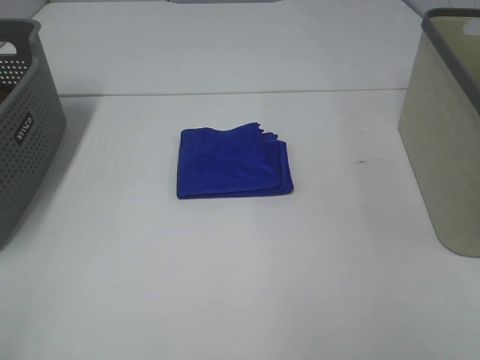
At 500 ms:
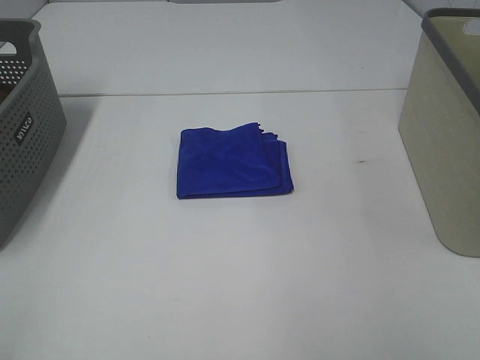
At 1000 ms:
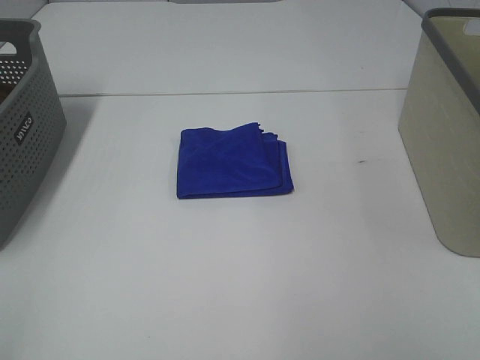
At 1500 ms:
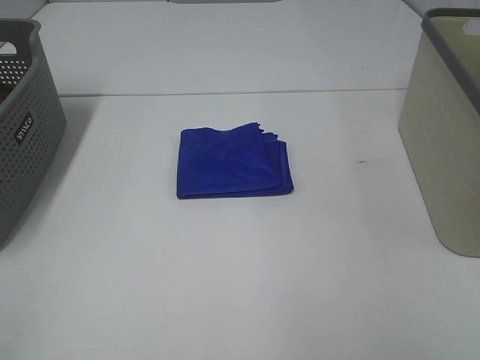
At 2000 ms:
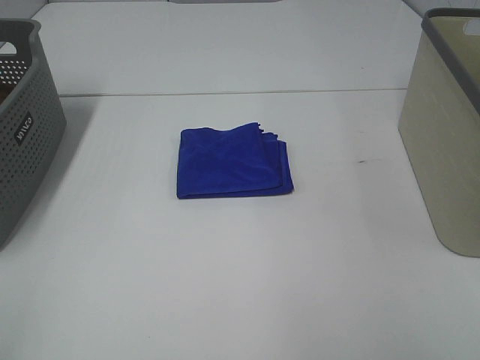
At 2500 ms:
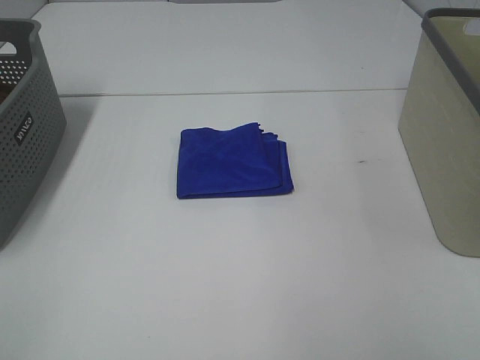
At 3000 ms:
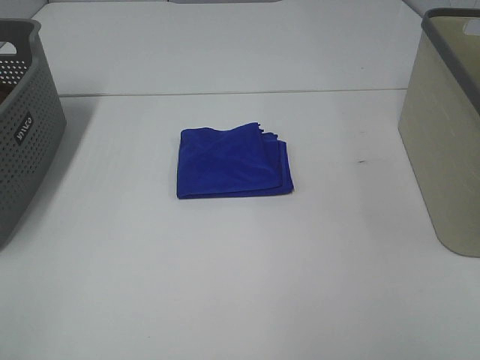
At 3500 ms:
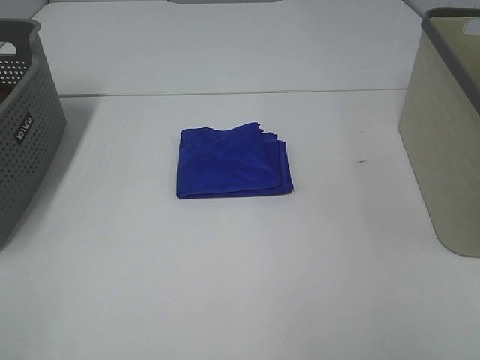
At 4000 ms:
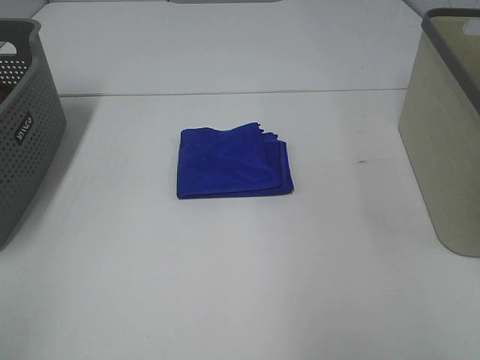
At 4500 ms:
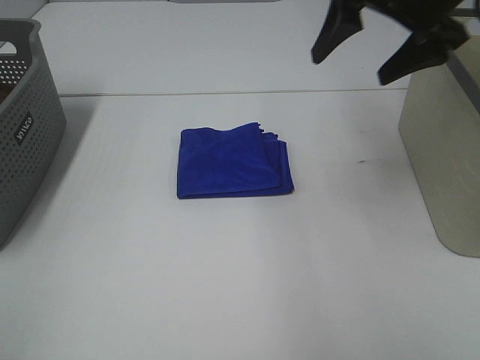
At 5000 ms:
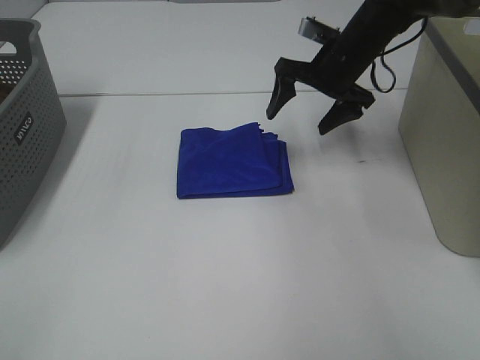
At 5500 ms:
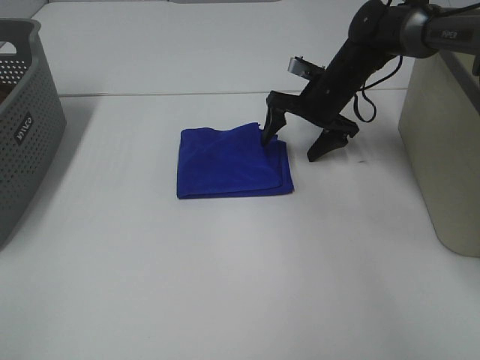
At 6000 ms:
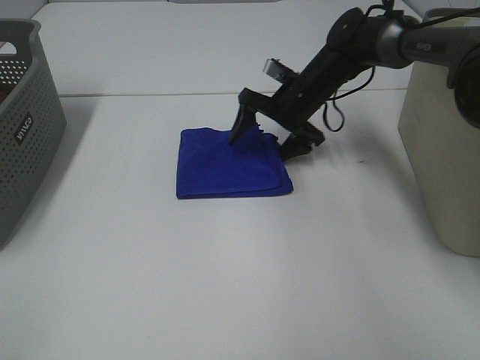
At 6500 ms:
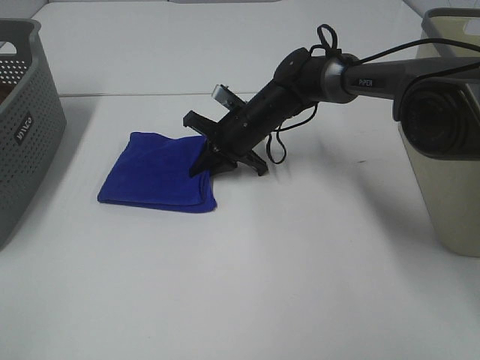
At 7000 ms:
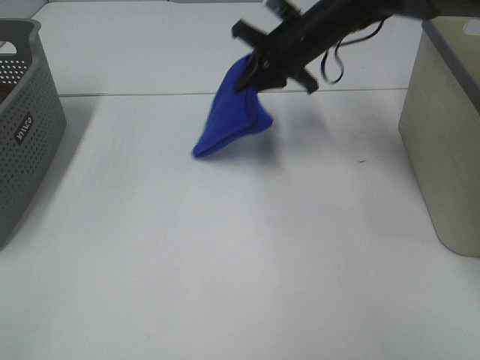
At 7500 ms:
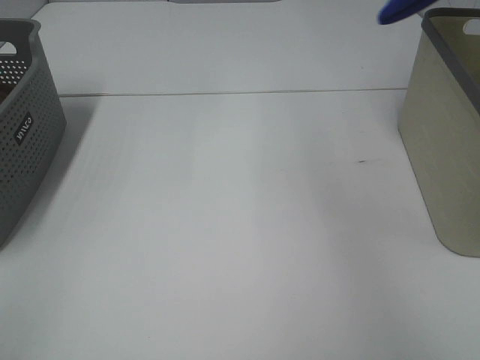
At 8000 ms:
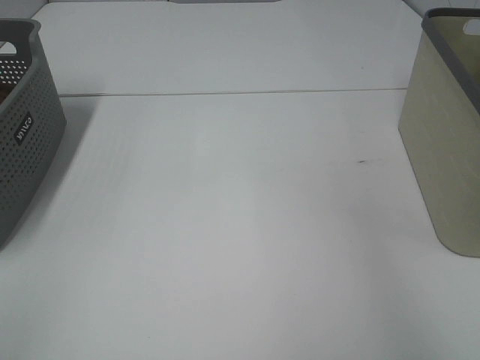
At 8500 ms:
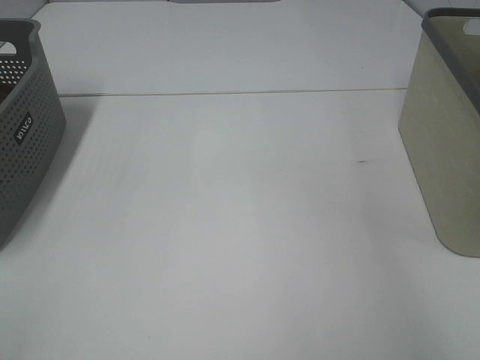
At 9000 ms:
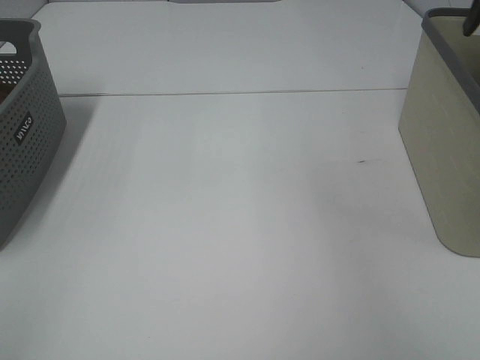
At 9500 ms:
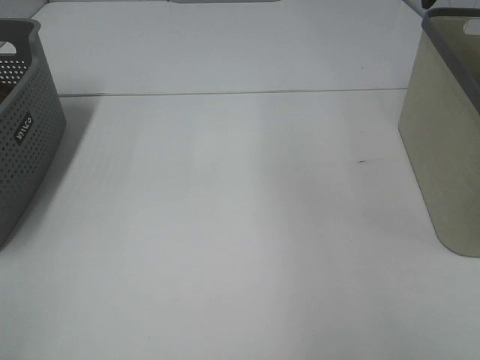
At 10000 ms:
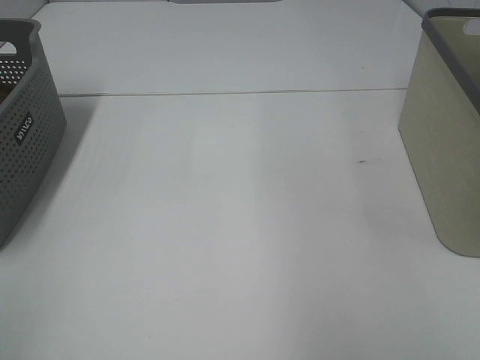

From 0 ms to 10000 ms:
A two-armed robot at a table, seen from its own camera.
Step, from 0 ms to 6500 ms: Right hand: grab the folded blue towel.
Step, from 7000 ms to 8500 ms: Right hand: place the blue towel in right basket.
From 0 ms to 2000 ms: Neither gripper changes place.
From 4000 ms to 6000 ms: The right gripper goes some 50 cm forward, downward and to the left.
From 6000 ms to 8000 ms: The right gripper heads upward and to the right, covering approximately 40 cm, and closes.

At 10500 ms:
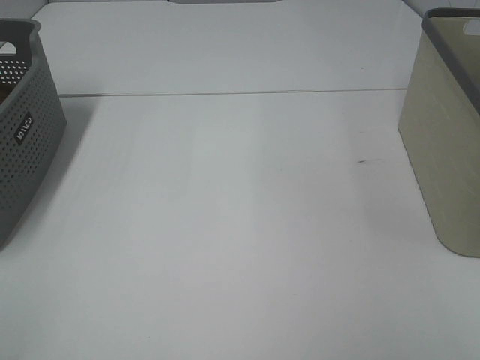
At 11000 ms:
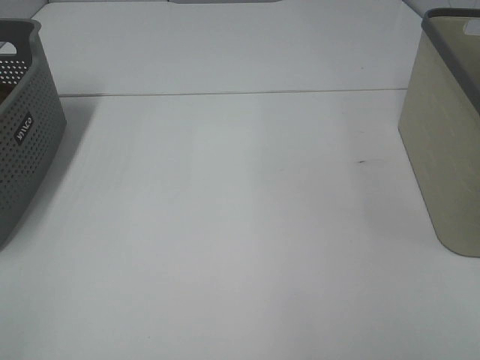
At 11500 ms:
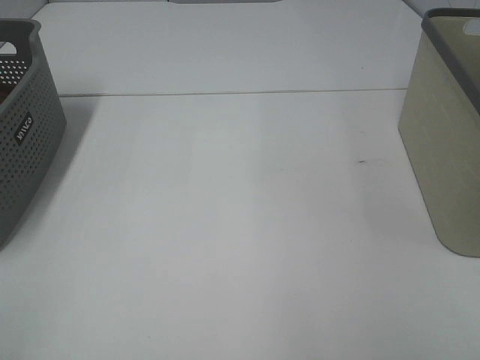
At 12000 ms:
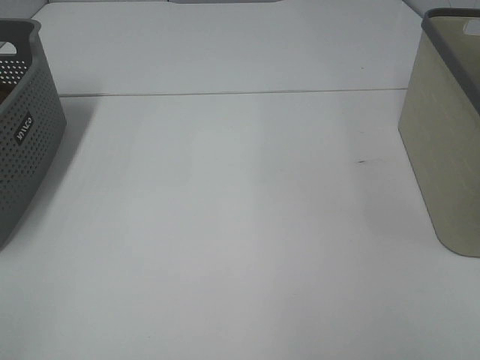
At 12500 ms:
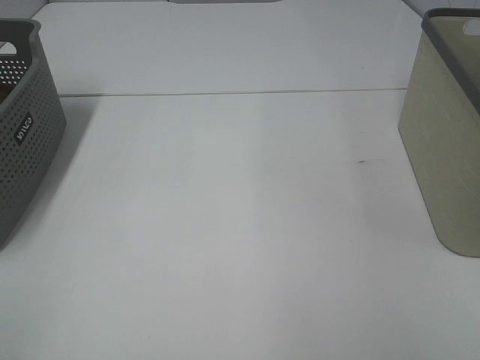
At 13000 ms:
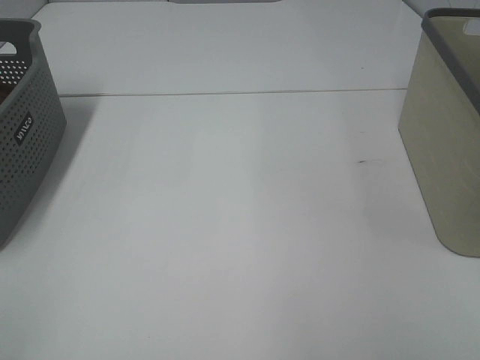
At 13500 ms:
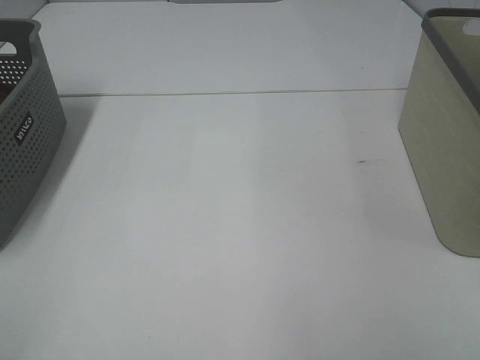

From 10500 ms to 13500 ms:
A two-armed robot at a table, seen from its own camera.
From 12000 ms to 13500 ms: The two grippers keep their place.

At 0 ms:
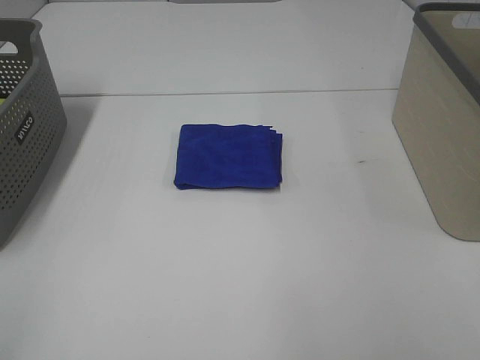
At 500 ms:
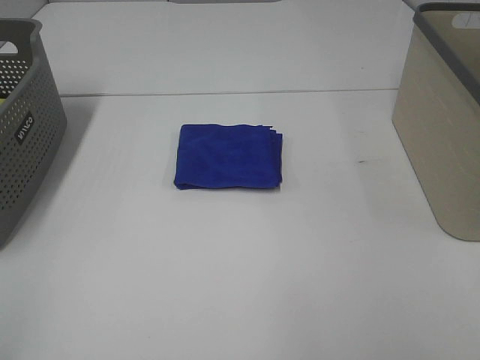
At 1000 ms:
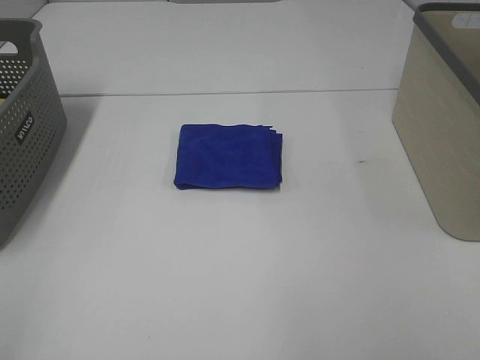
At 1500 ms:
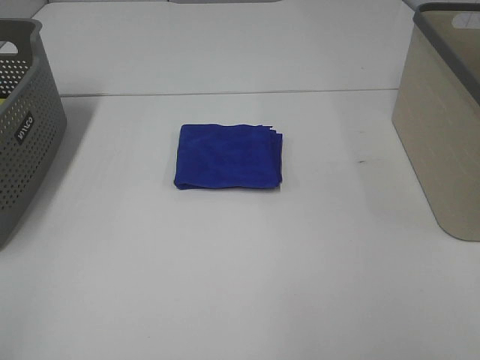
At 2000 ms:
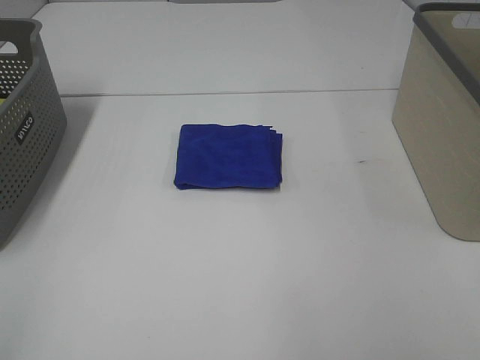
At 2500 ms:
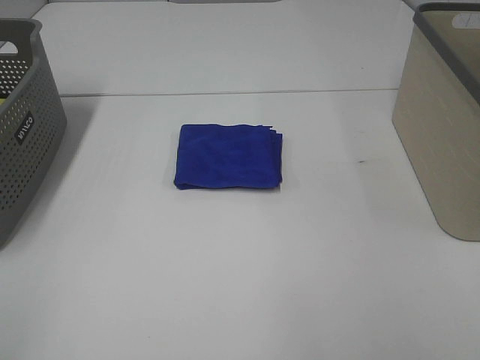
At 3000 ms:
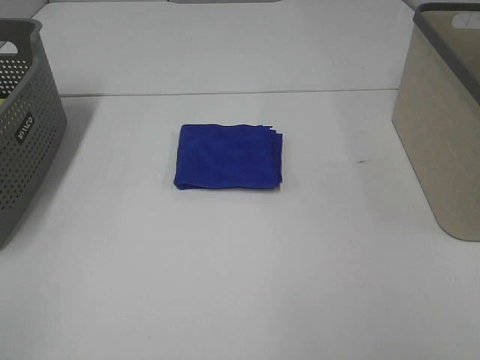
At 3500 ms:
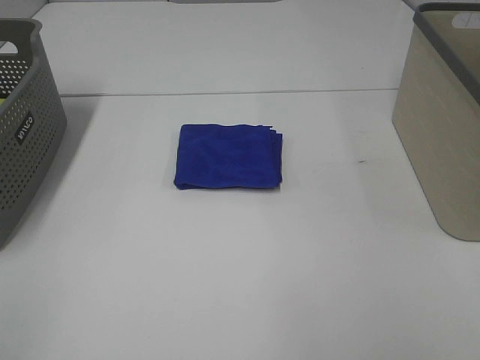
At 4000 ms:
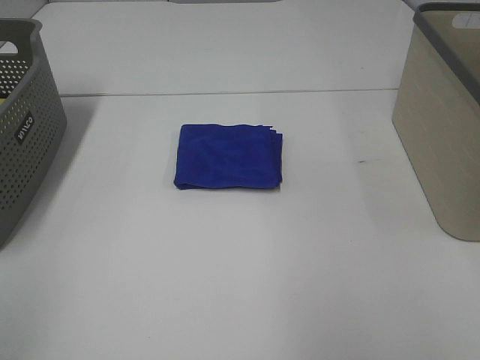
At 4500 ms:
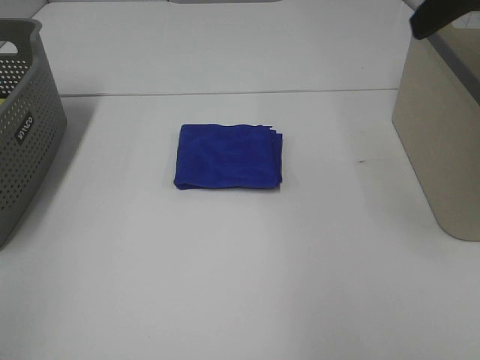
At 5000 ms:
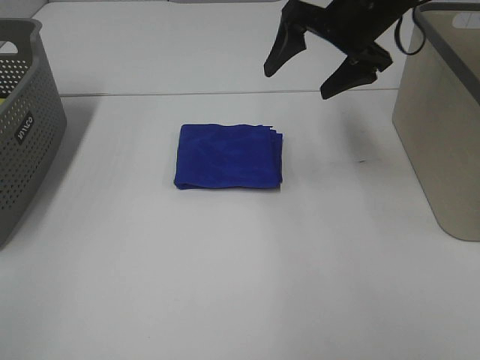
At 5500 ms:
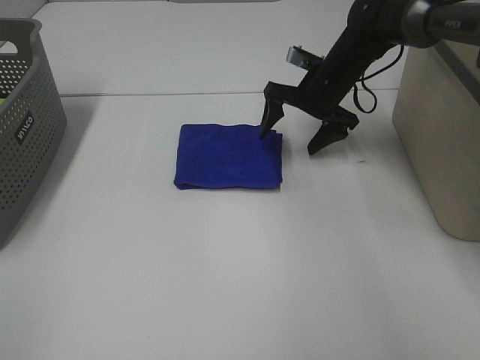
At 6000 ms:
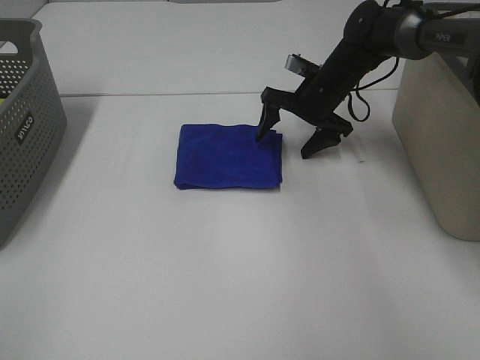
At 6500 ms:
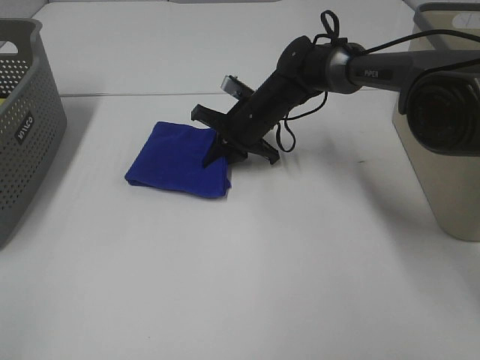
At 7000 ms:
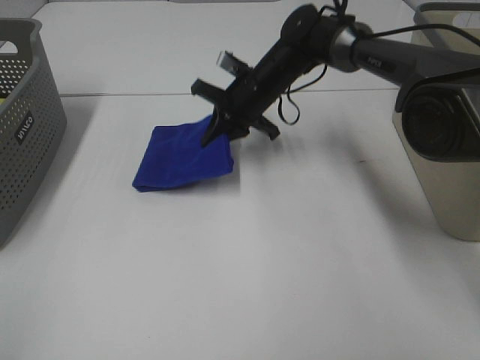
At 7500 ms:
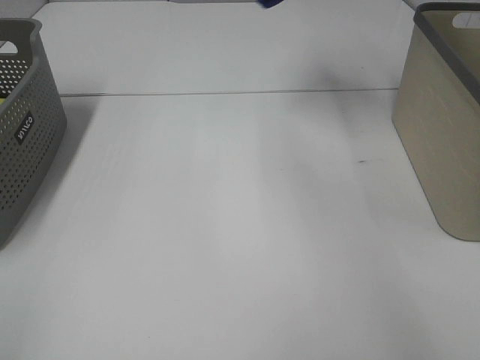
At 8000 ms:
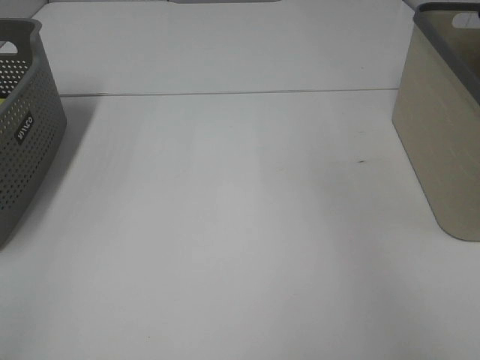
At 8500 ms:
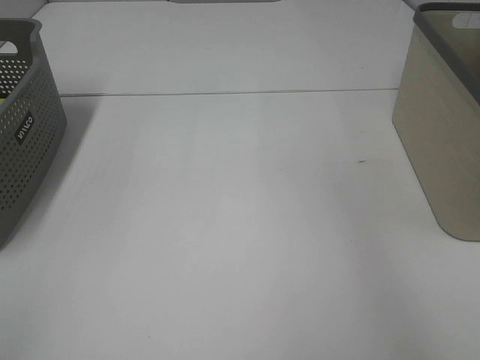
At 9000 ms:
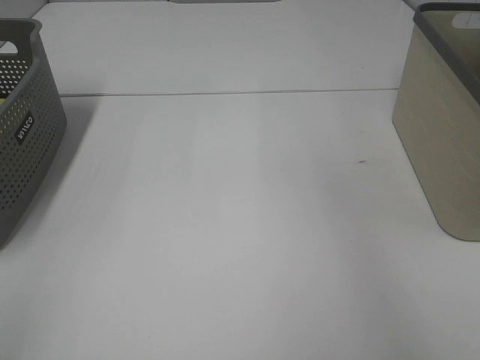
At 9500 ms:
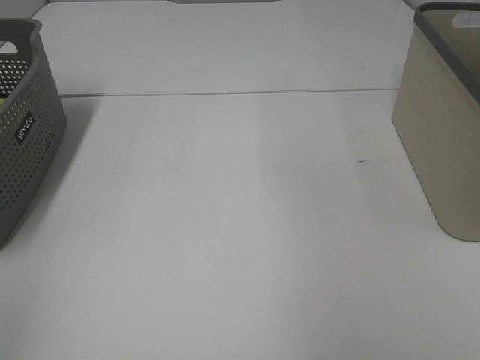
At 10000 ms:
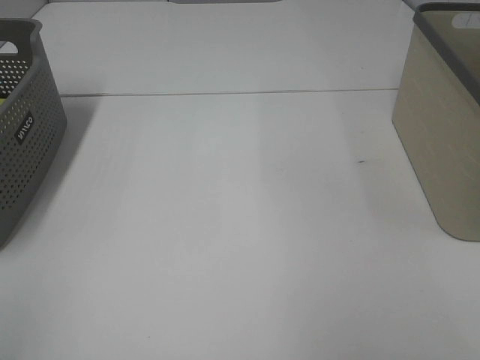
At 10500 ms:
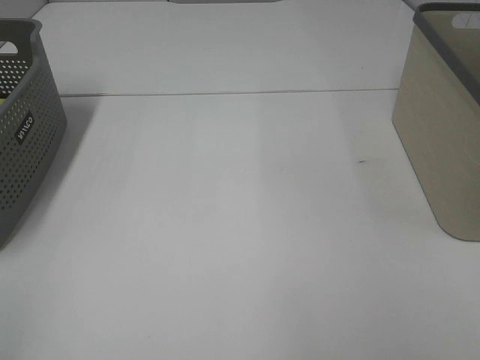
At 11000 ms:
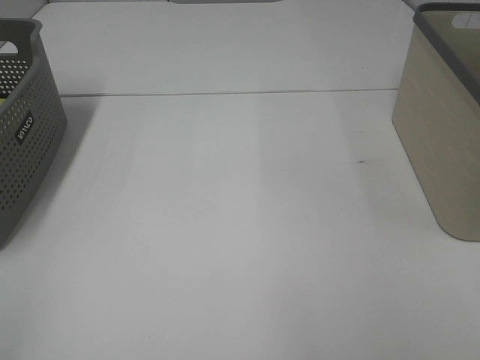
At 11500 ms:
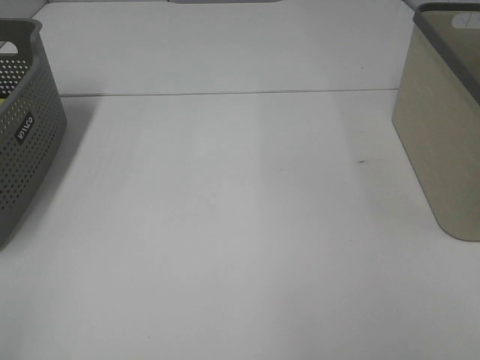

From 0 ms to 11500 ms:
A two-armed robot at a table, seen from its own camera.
Step, from 0 ms to 6500 ms: Right hand: grab the folded blue towel.
Step, from 7000 ms to 8500 ms: Right hand: place the blue towel in right basket.
From 0 ms to 2000 ms: Both grippers stay about where they are.
From 4000 ms to 6000 ms: The right gripper moves forward, downward and to the left, about 50 cm.
From 6000 ms to 7500 ms: The right gripper moves upward, about 30 cm, and closes.
From 7500 ms to 9500 ms: The right gripper is displaced backward by roughly 25 cm, and opens up.

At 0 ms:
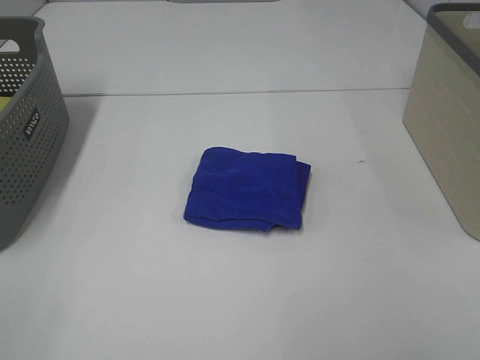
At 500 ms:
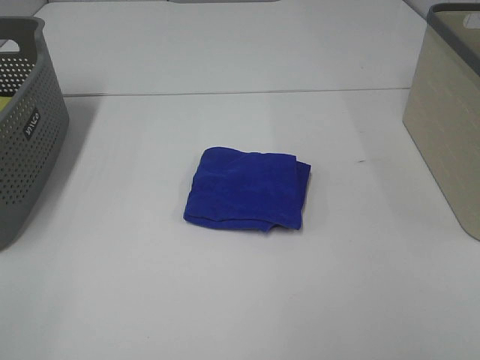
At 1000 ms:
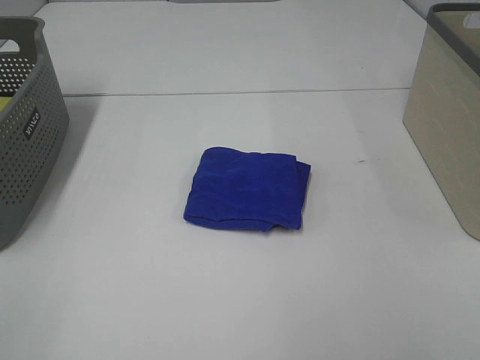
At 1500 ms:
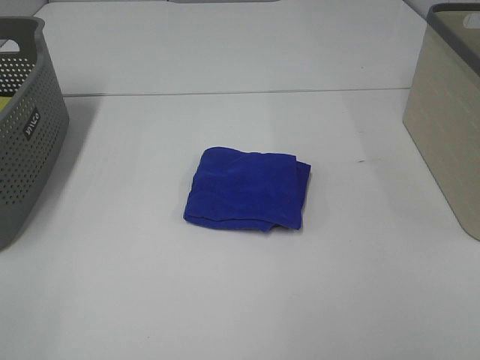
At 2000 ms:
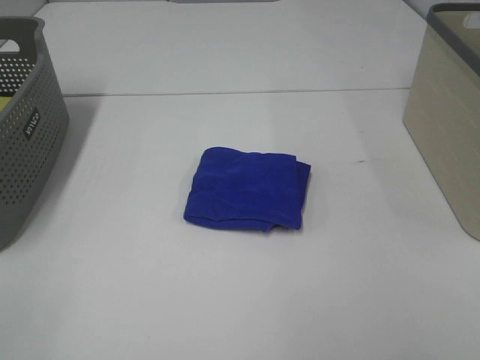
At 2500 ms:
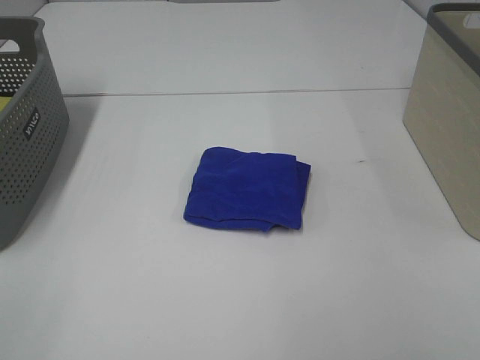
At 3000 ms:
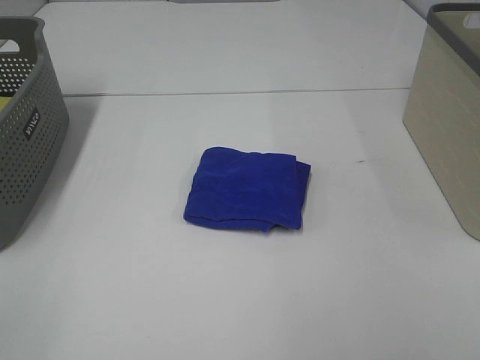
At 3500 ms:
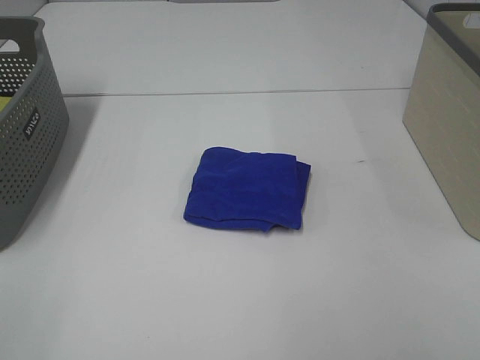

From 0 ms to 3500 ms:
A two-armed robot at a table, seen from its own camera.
From 0 ms to 3500 ms: Neither gripper changes place.
